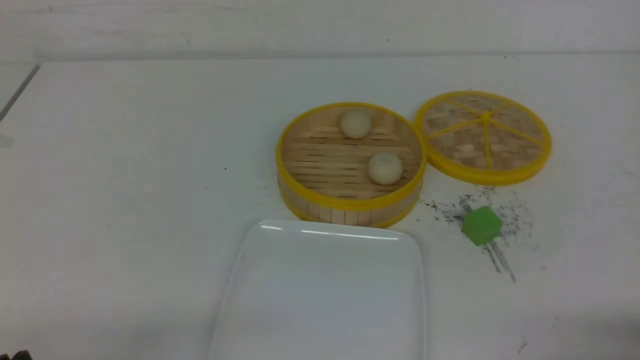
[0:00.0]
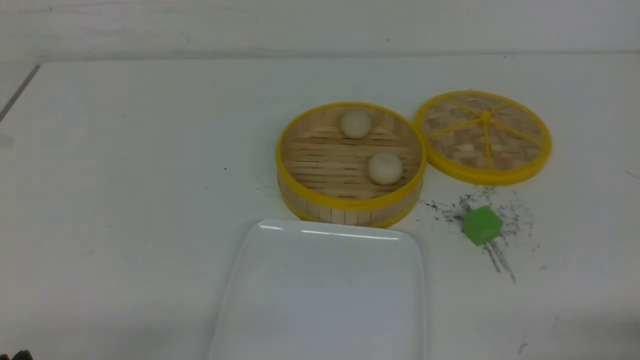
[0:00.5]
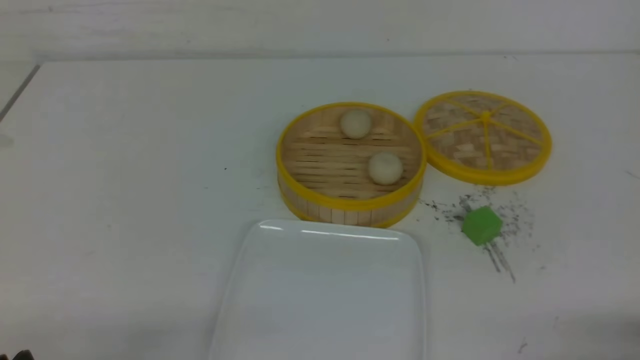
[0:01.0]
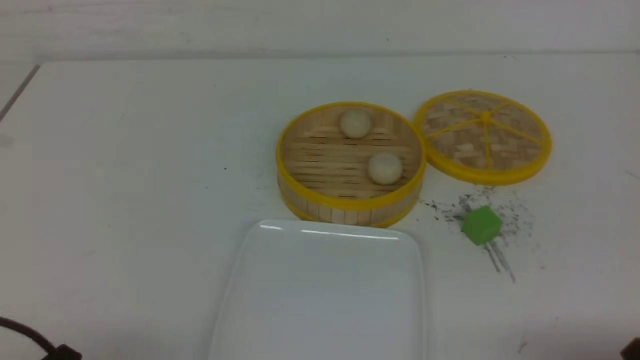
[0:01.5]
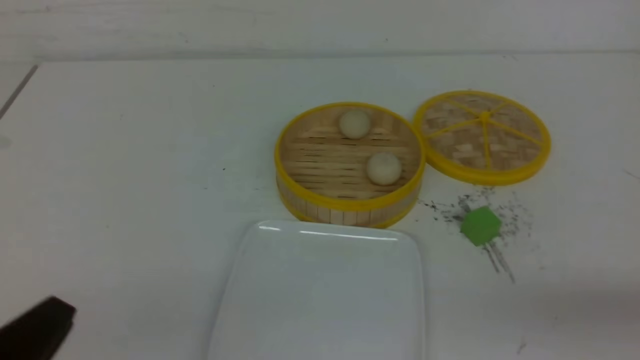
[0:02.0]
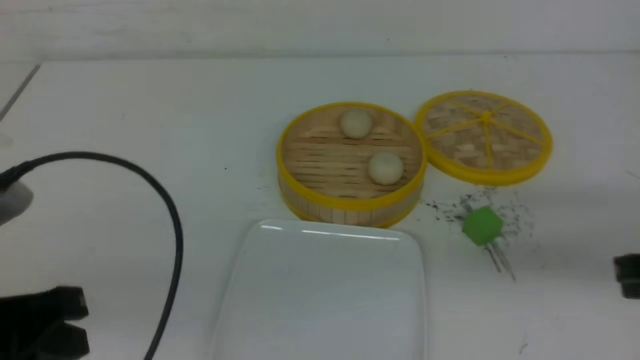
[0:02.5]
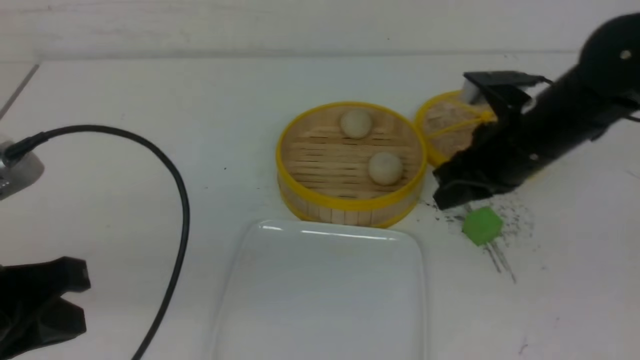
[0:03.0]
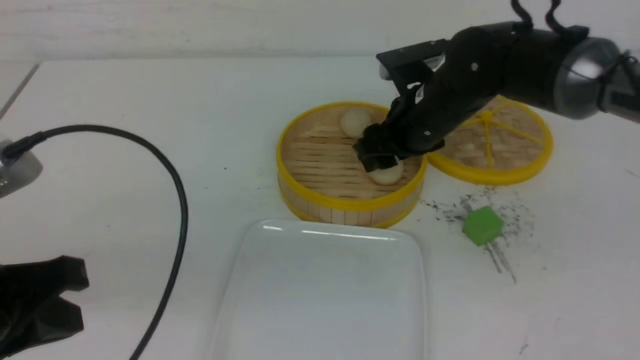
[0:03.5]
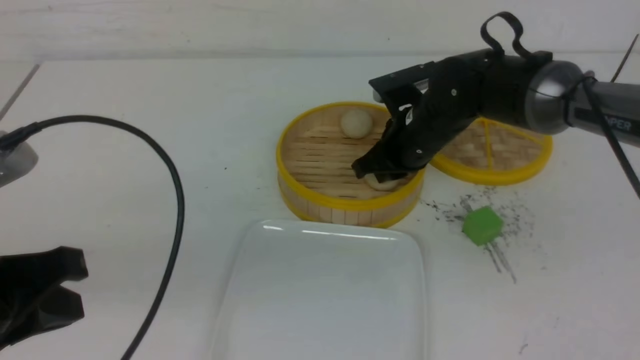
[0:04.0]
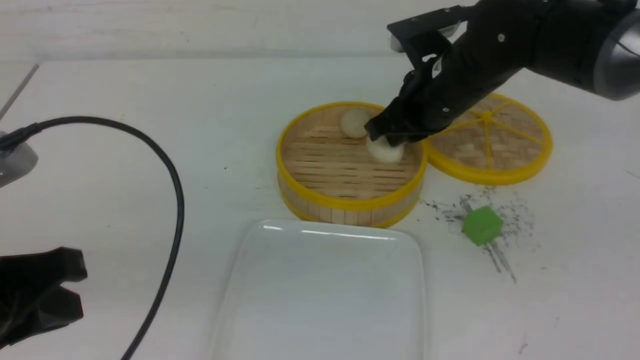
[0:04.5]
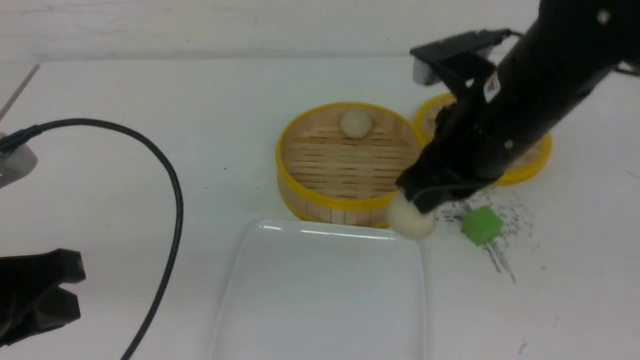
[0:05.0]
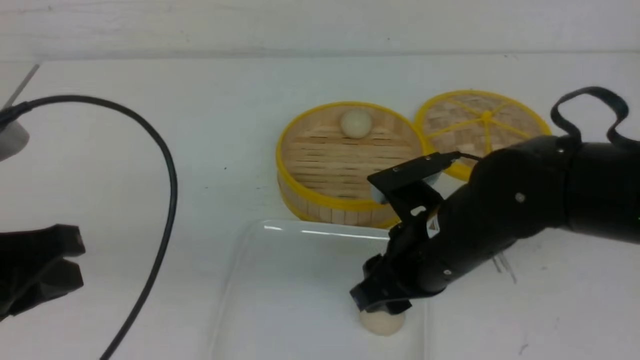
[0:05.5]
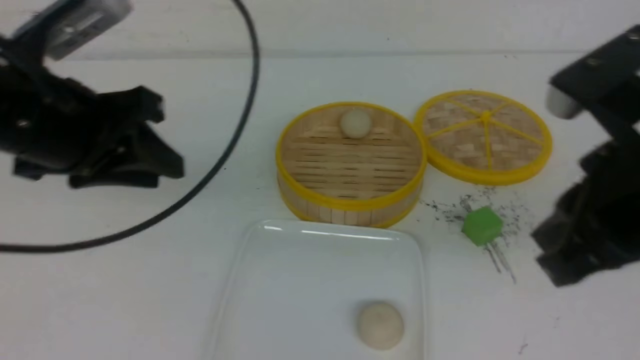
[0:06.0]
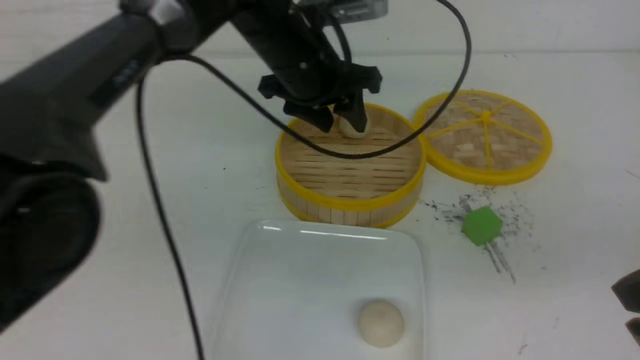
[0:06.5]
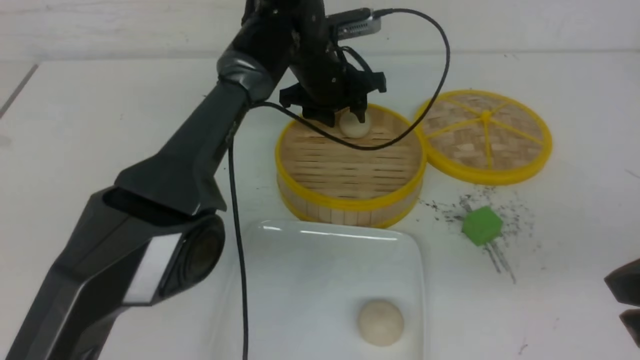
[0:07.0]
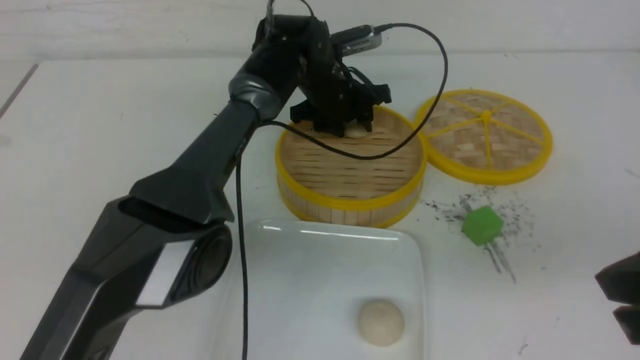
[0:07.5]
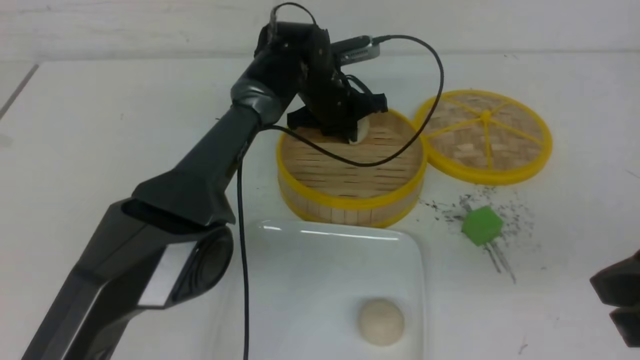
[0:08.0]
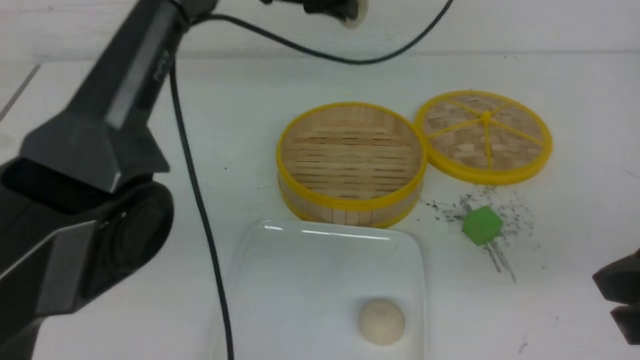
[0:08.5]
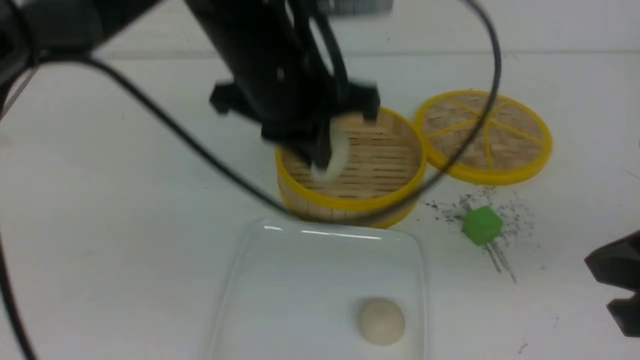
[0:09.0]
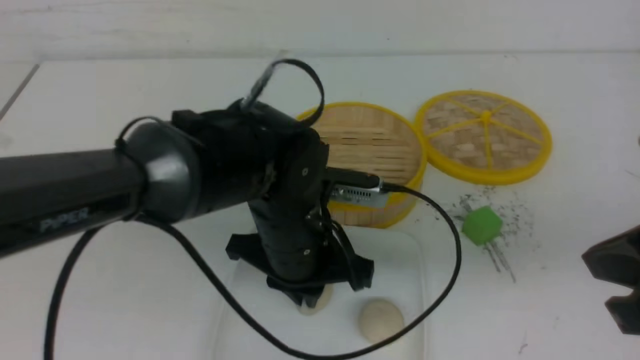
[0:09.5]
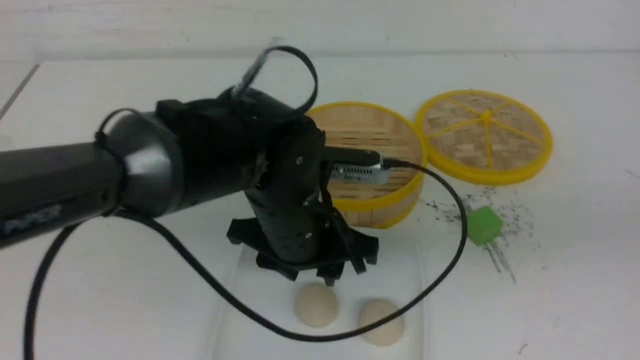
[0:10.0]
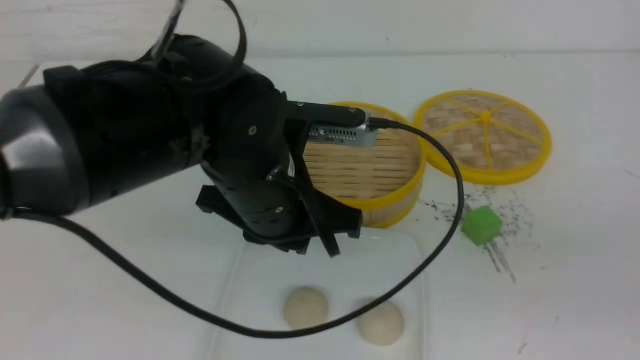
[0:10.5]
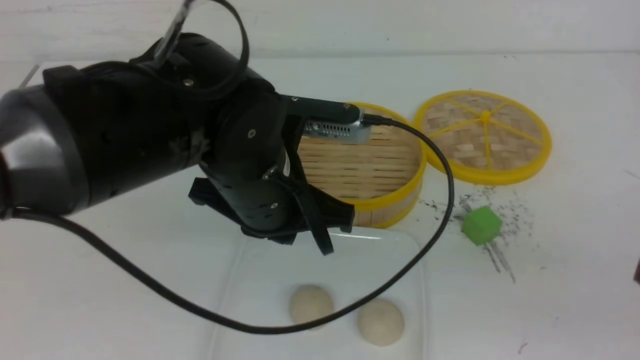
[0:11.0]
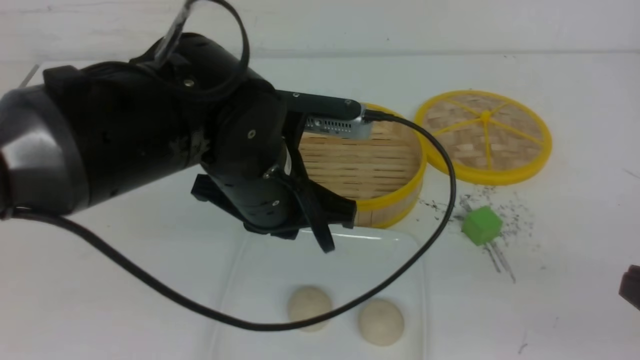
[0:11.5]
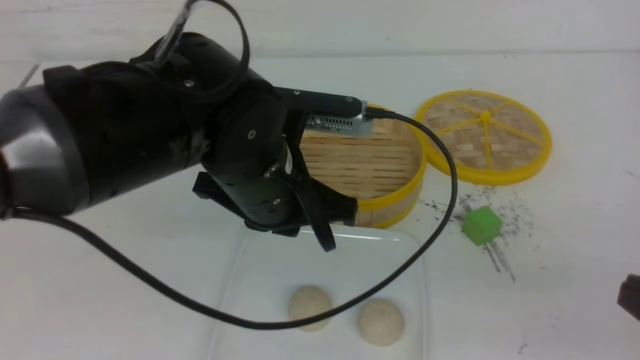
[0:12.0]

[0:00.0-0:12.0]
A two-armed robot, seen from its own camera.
Step, 0:00.0 to 0:04.0: use the right arm to grab the steamed stuffed bun that is closest to it.
Step, 0:04.5 to 0:05.5: use the right arm to put the steamed stuffed bun into the plate.
Step, 0:06.0 to 0:07.5: use the left arm to grab the steamed stuffed bun that is closest to it.
Step, 0:08.0 to 0:09.5: use the left arm to put the steamed stuffed bun into the plate.
0:00.0 to 0:02.0: Both grippers move upward, about 10 cm. The right gripper closes its fingers.
0:02.0 to 0:04.0: The left gripper shifts roughly 10 cm forward and upward. Meanwhile the right gripper heads forward and to the left, covering about 40 cm, and opens, then closes again.
0:04.0 to 0:06.0: The left gripper moves forward, to the right and upward, roughly 15 cm, and opens, while the right gripper is displaced backward and upward by roughly 30 cm, and opens, then closes once more.
0:06.0 to 0:08.0: The right gripper changes place by some 5 cm. The left gripper is displaced forward, to the right and downward by approximately 35 cm, and closes up.
0:08.0 to 0:10.0: The right gripper shifts by about 5 cm; the left gripper travels backward by roughly 25 cm, and opens up.
0:10.0 to 0:12.0: The right gripper heads downward, covering some 15 cm, while the left gripper changes place by approximately 5 cm, and closes up.

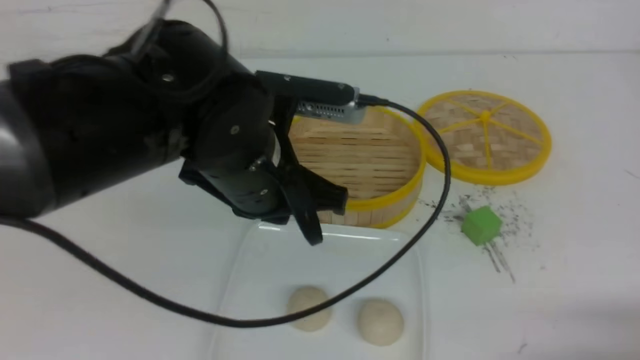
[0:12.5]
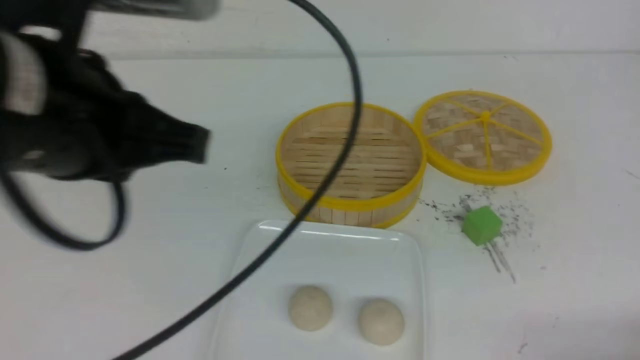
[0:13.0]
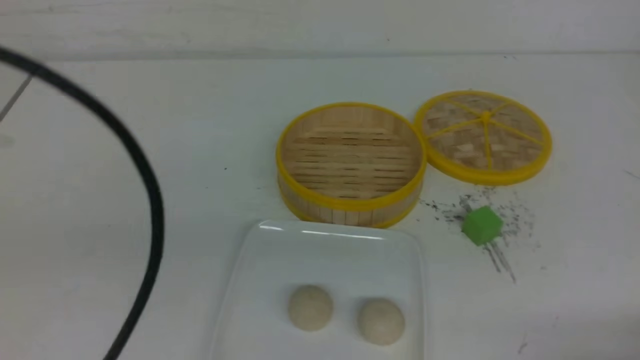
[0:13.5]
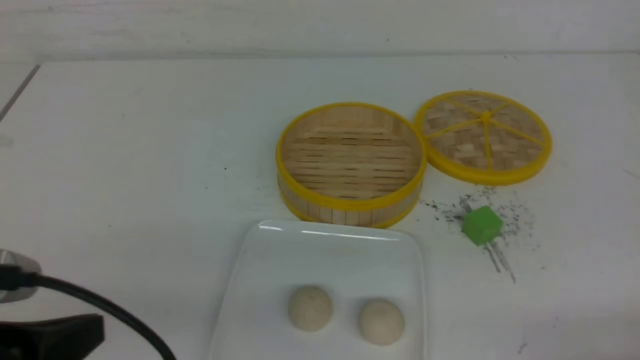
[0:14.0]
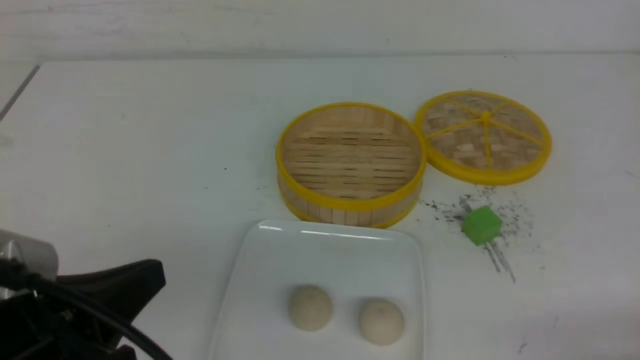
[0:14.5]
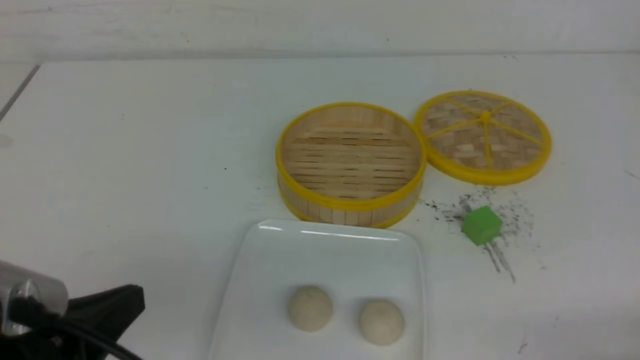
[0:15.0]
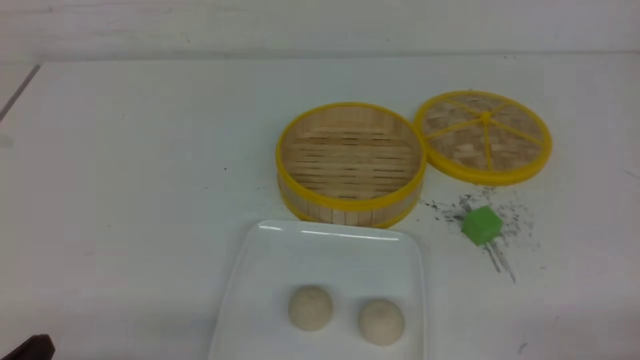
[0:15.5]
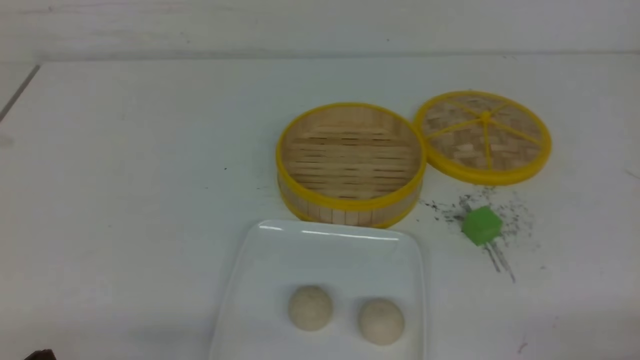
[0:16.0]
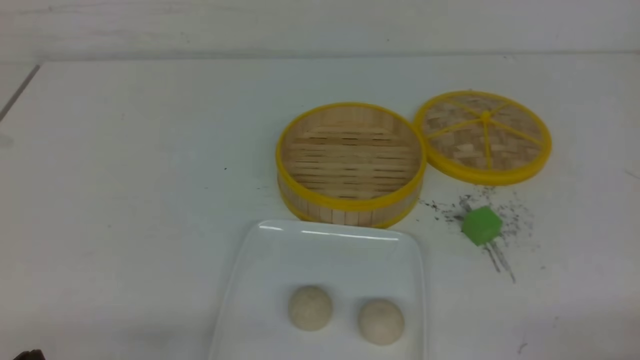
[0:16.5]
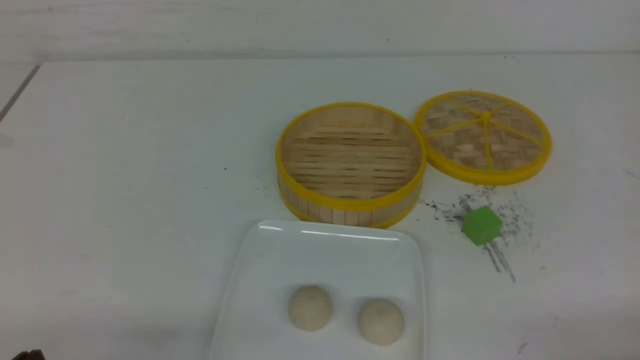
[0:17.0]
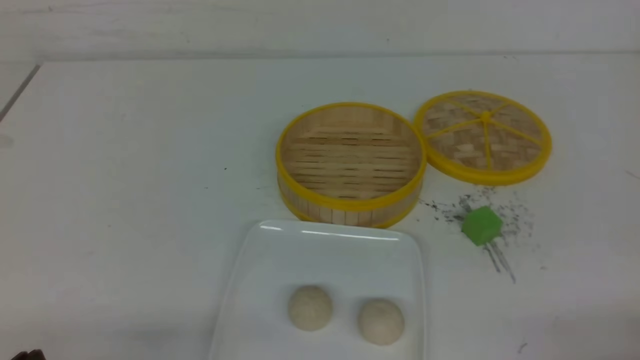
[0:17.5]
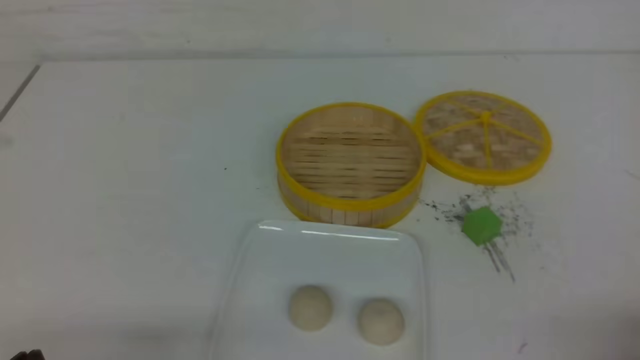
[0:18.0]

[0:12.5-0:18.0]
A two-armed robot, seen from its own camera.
0:12.5 to 0:14.5: The left gripper heads backward and to the left, covering approximately 20 cm.
0:14.5 to 0:16.0: The left gripper moves downward and to the left, some 15 cm.
0:16.0 to 0:18.0: Neither gripper changes place.
